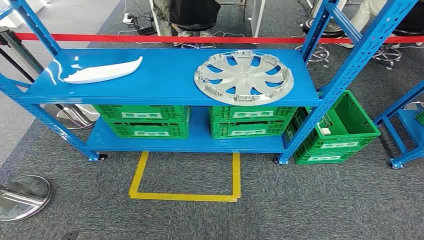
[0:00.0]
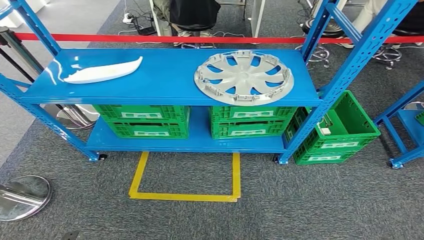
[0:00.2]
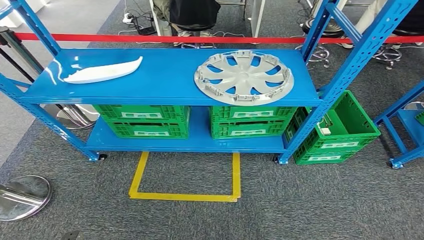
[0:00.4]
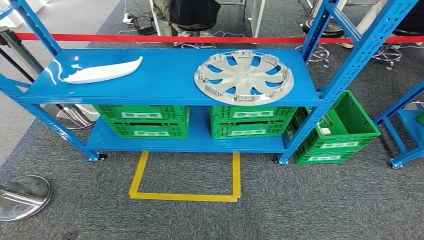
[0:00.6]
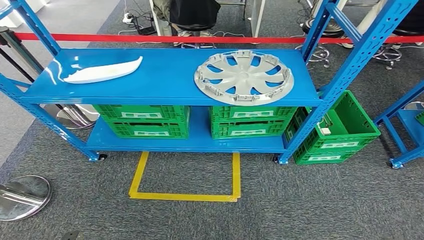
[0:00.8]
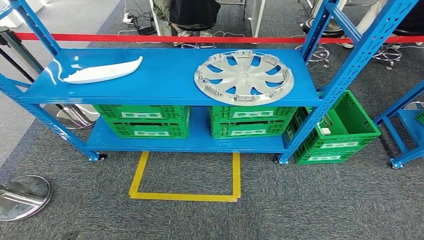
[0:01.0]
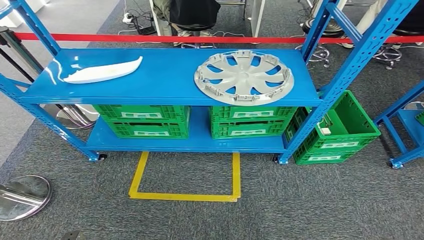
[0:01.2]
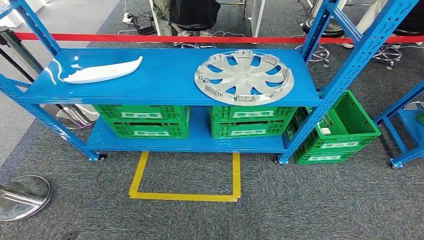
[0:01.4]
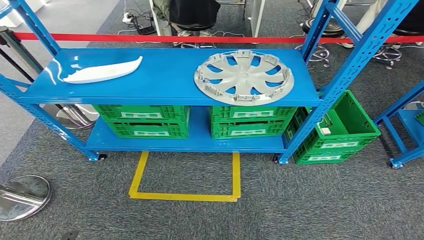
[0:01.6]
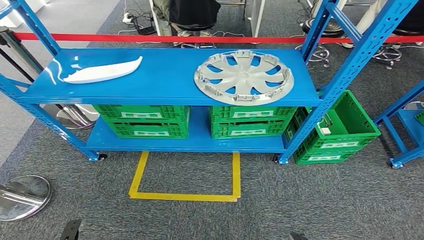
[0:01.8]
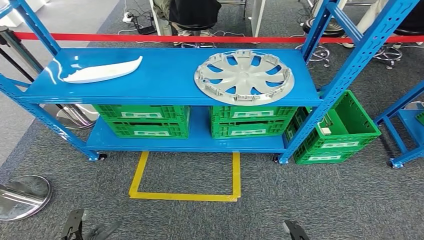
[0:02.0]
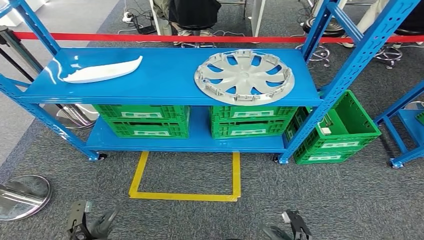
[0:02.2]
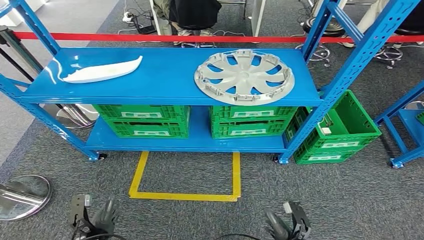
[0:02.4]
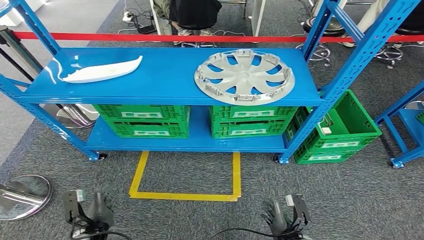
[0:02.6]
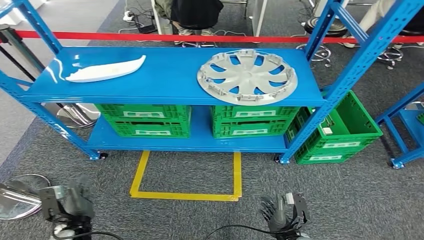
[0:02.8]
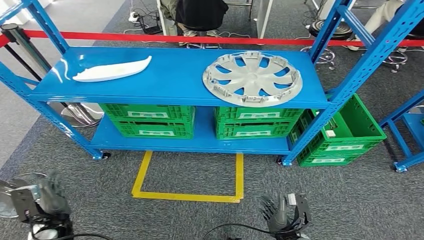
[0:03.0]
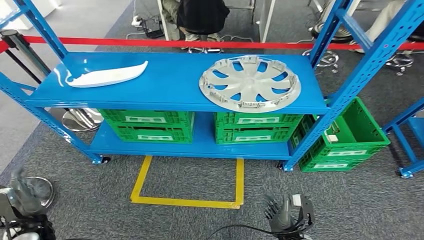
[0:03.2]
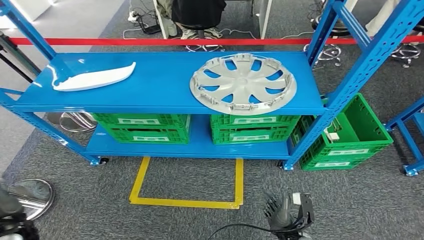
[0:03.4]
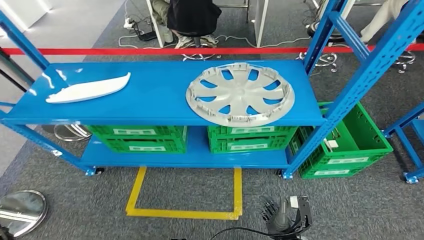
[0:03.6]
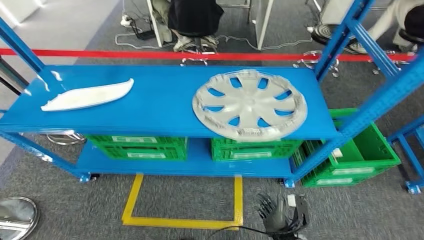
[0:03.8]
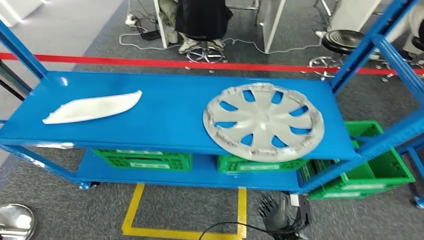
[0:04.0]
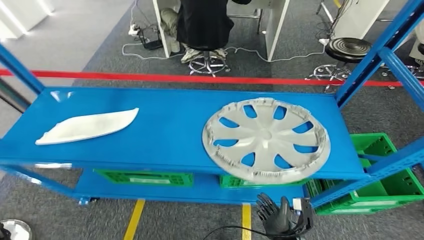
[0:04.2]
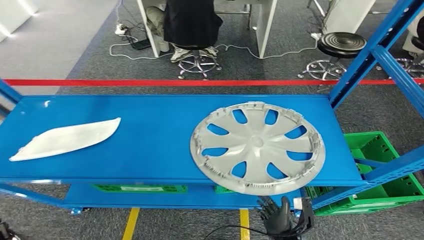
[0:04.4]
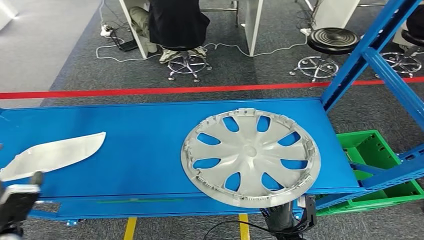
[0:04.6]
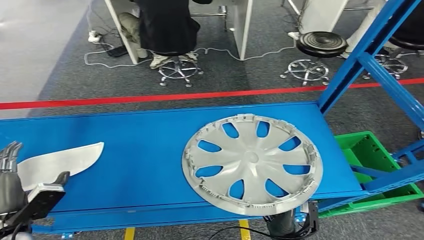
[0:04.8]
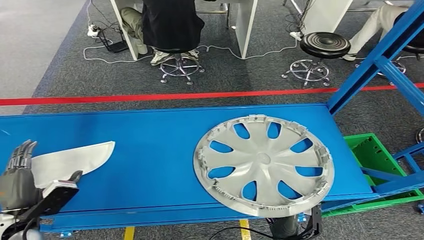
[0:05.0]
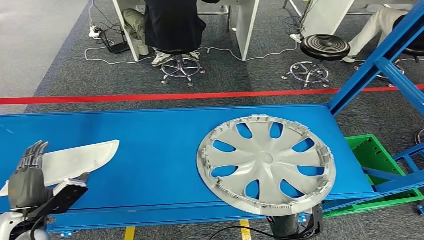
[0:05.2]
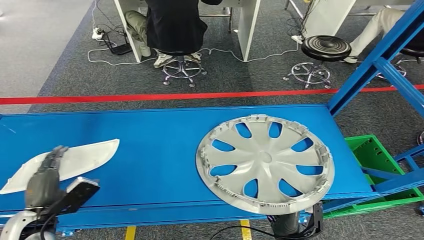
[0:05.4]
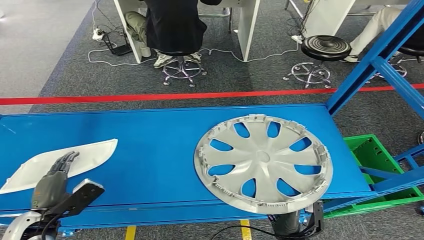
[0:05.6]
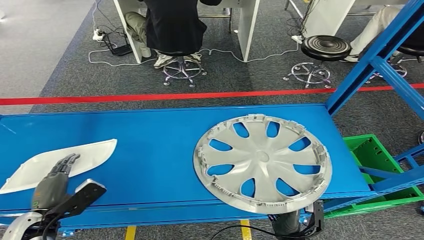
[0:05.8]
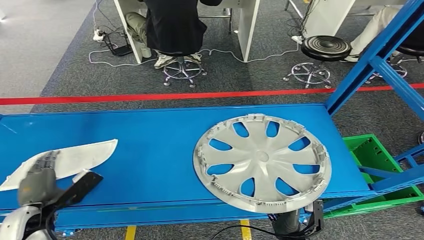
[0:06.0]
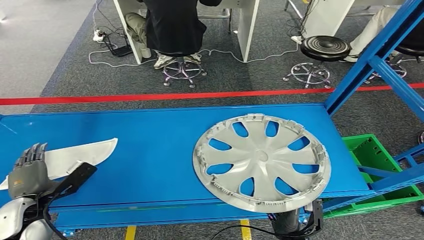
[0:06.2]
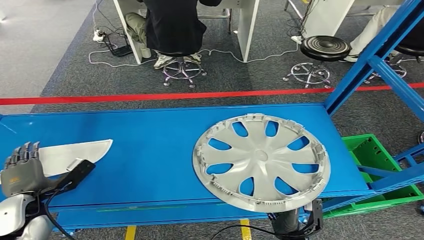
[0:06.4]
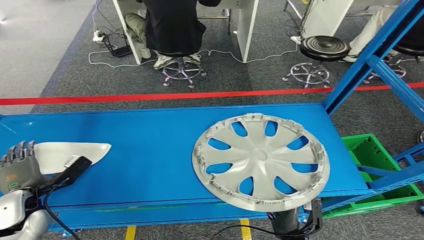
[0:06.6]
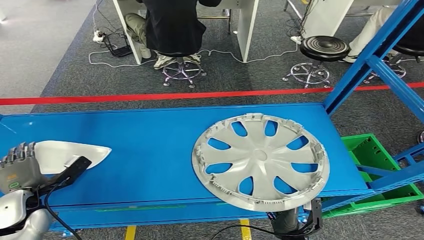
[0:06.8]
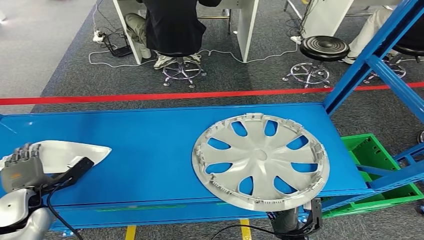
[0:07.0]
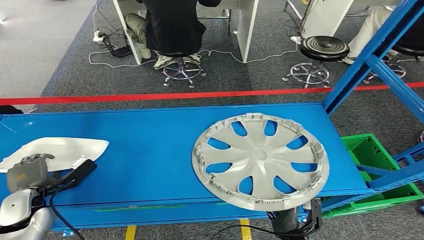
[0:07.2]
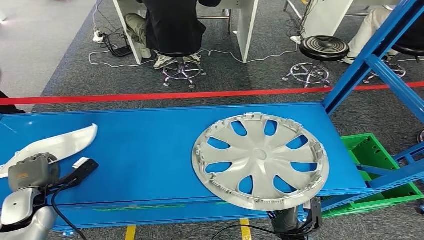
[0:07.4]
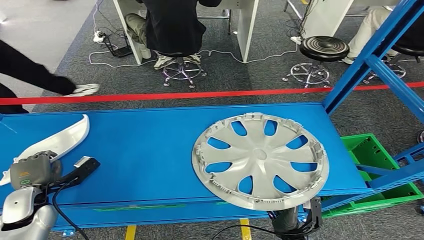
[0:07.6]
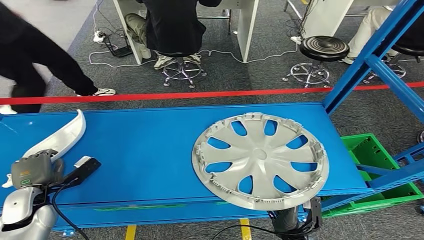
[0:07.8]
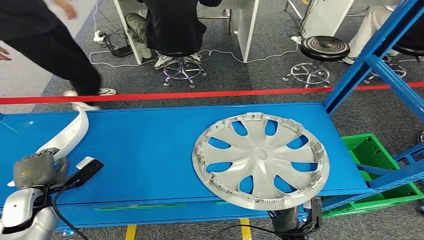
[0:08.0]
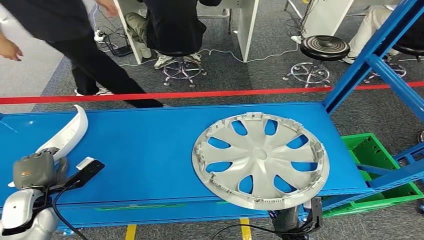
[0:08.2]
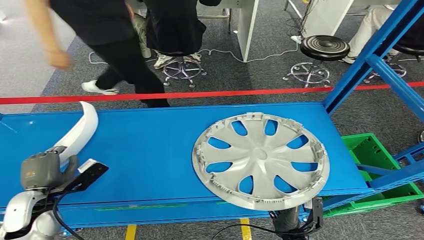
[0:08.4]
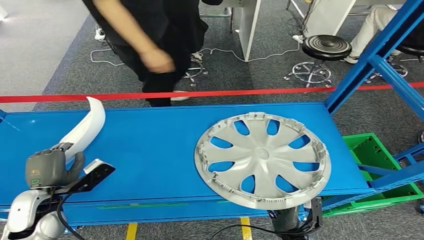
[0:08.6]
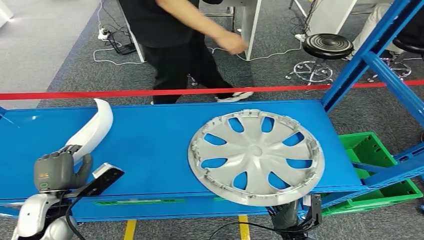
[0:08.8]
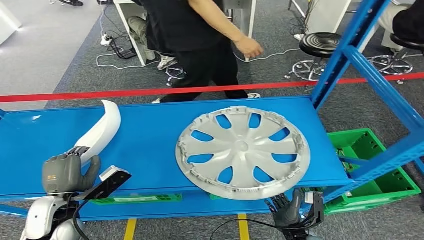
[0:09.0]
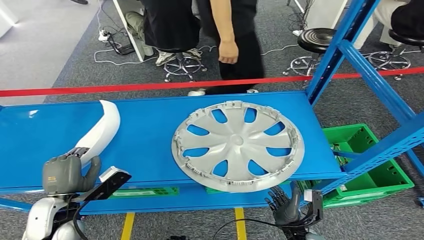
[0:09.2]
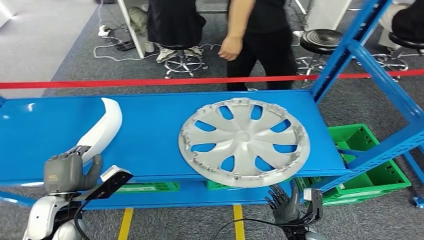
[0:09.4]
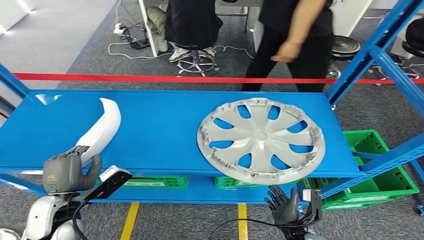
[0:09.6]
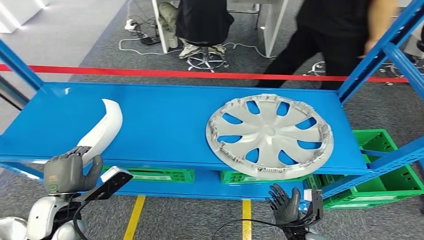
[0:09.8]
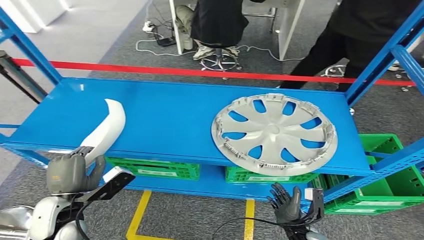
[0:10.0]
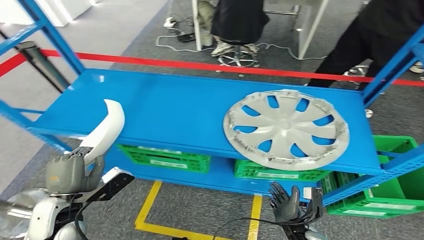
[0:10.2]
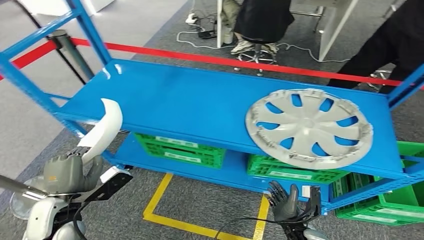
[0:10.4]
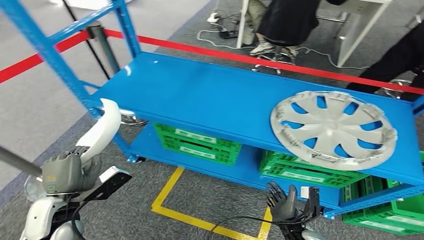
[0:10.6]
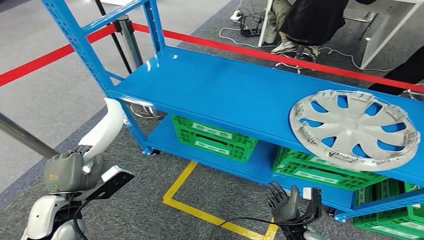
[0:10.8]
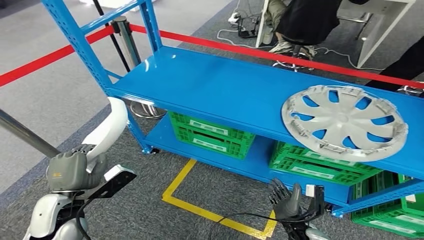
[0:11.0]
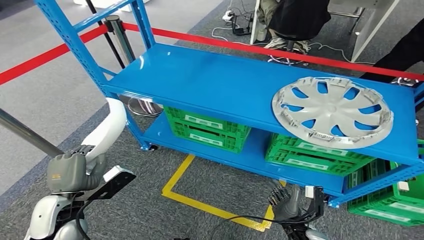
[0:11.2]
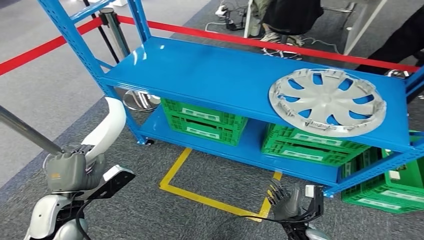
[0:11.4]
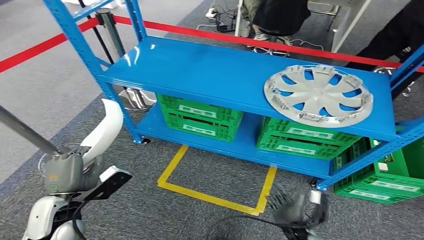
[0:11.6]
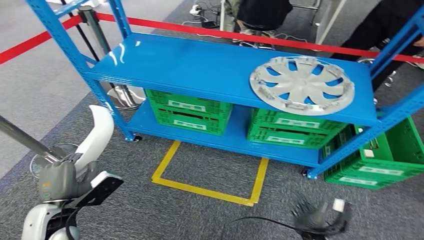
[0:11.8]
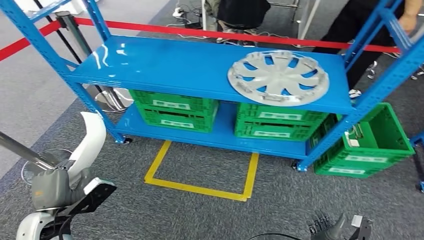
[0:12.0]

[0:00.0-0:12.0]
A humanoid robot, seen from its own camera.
Step, 0:00.0 to 0:11.0: Pick up the small component from the shelf.

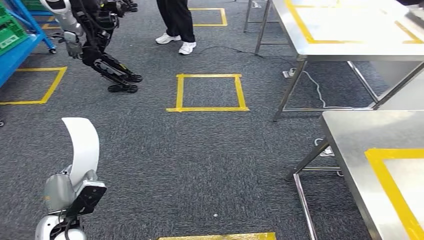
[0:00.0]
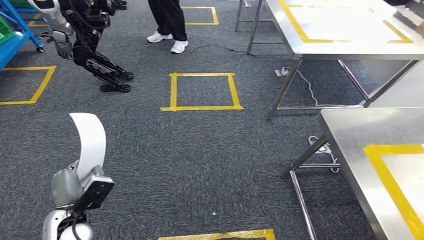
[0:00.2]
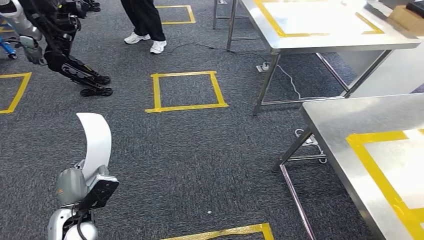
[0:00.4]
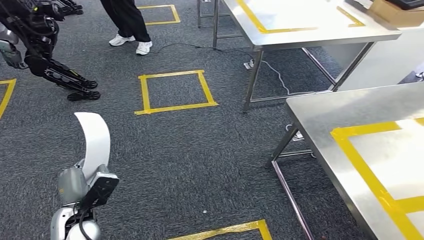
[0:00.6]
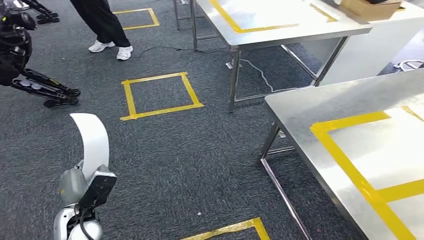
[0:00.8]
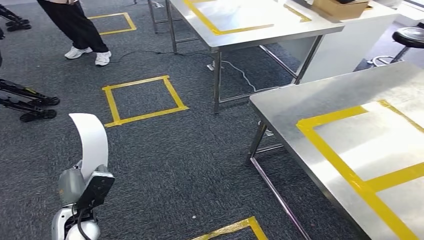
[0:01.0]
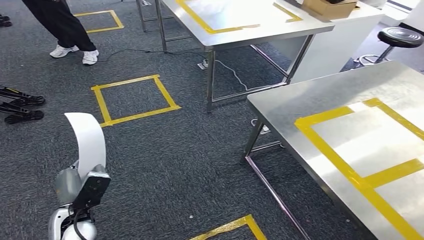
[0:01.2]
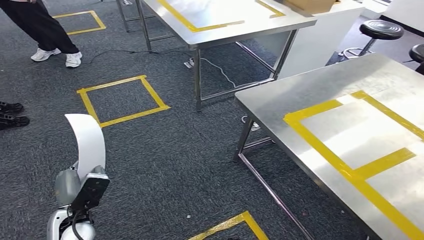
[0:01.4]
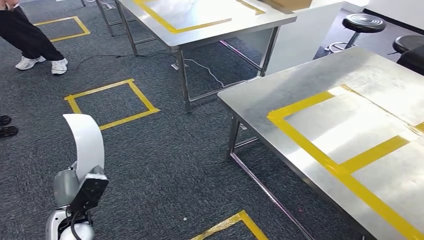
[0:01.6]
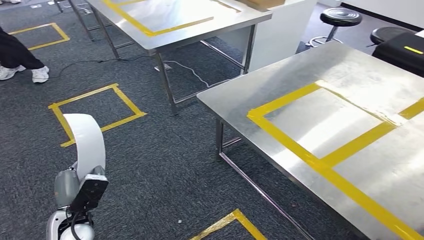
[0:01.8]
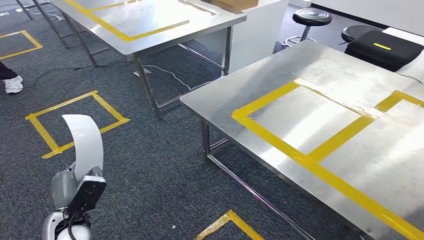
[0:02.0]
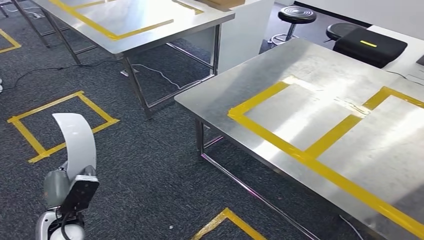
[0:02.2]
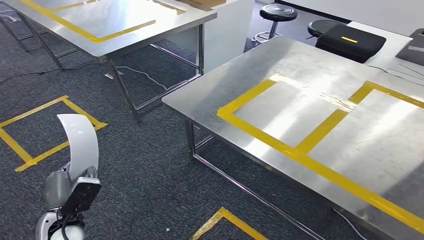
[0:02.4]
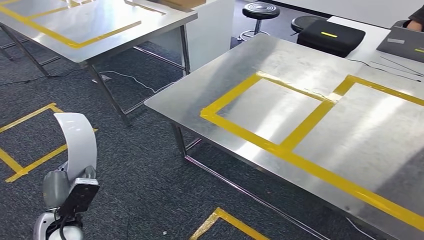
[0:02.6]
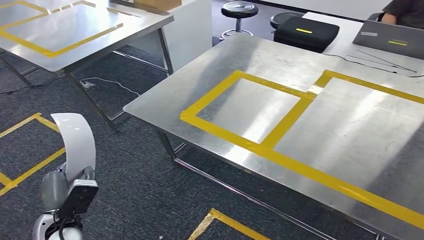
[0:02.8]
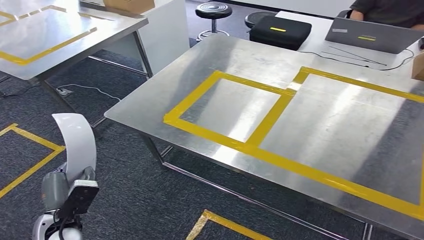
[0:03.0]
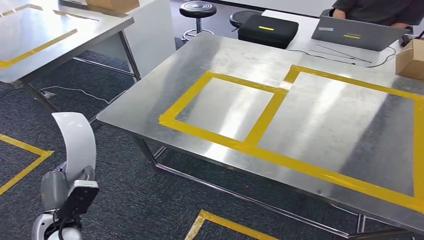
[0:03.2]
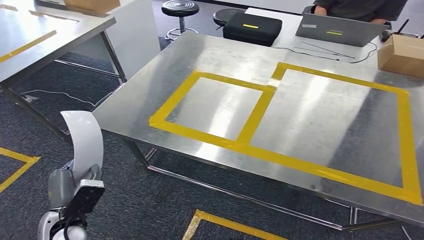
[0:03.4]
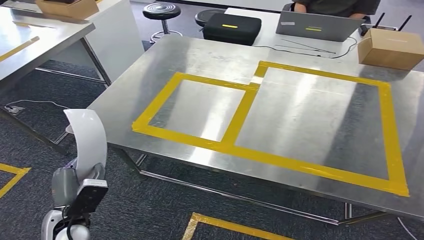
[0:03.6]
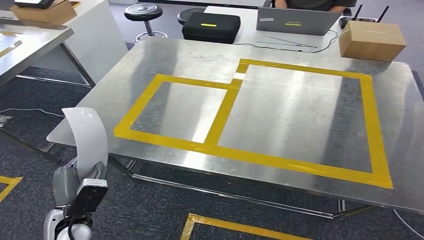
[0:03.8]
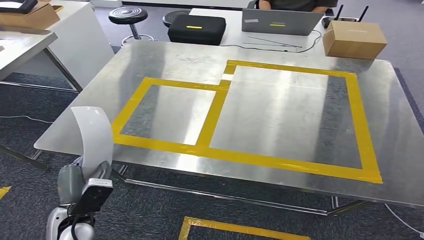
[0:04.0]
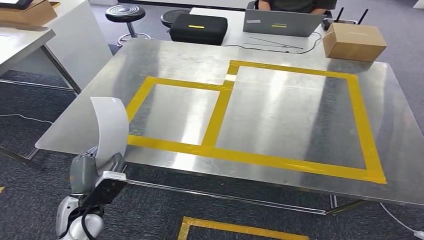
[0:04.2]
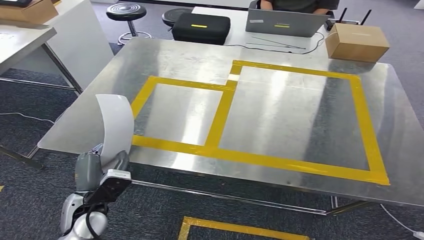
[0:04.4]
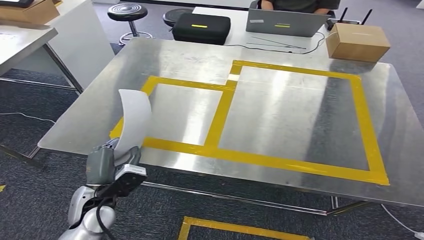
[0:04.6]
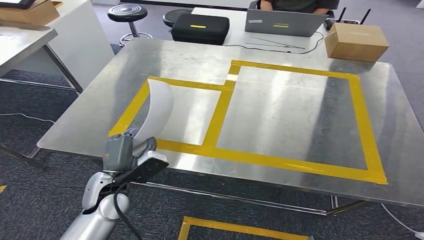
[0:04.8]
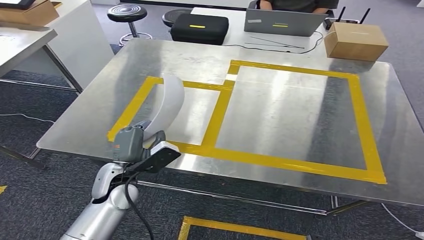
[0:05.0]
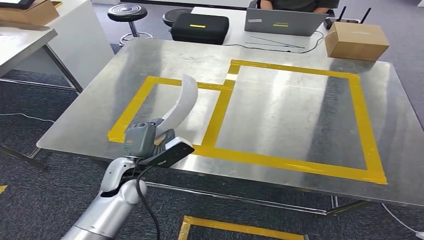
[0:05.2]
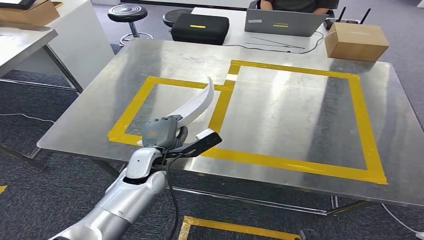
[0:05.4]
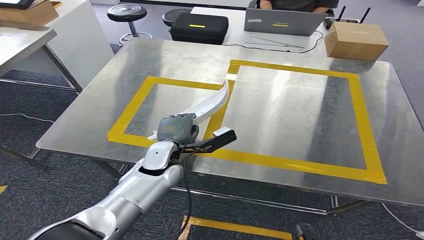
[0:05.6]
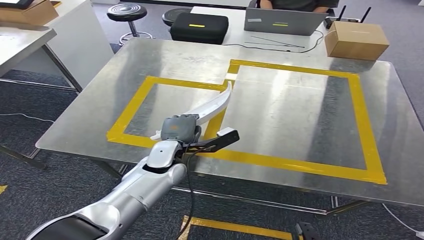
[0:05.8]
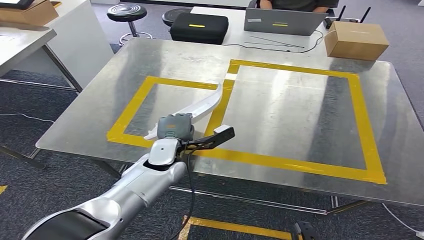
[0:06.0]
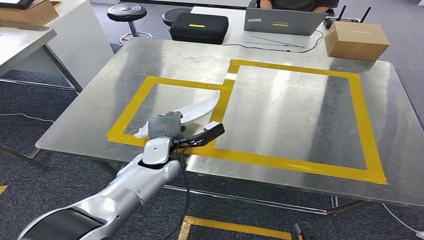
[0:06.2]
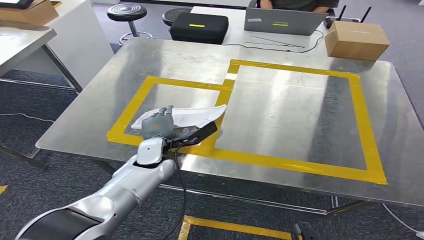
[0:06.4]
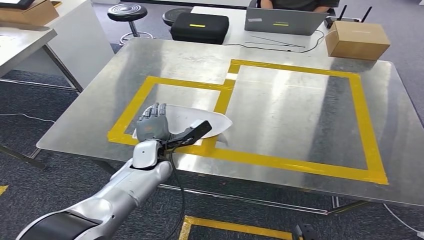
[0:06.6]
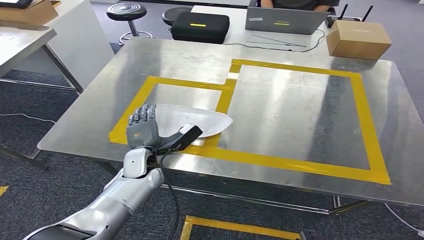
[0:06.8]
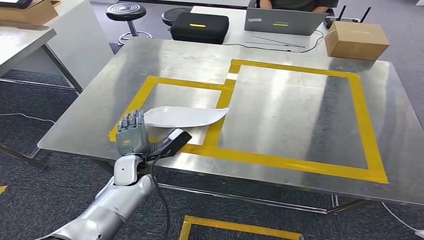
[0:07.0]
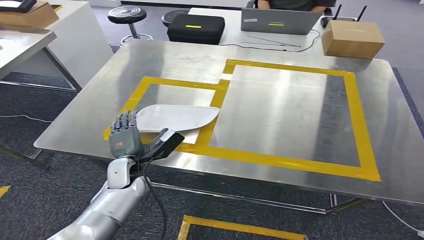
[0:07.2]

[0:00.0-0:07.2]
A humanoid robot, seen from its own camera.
Step, 0:00.0 to 0:03.8: Move the small component to the workbench.
0:04.4 to 0:05.8: The left hand heads forward and to the right, covering about 15 cm.
